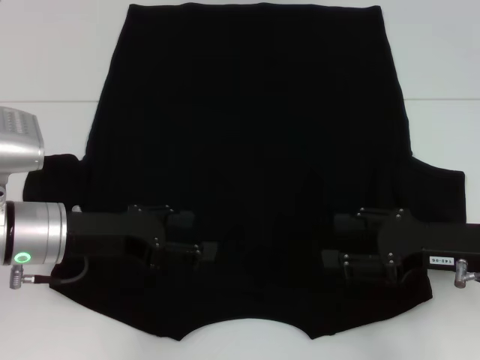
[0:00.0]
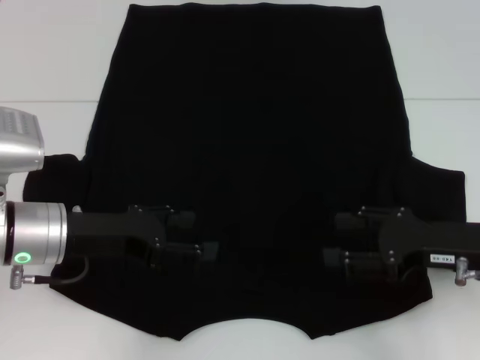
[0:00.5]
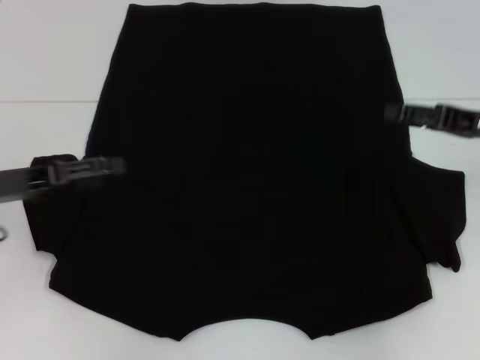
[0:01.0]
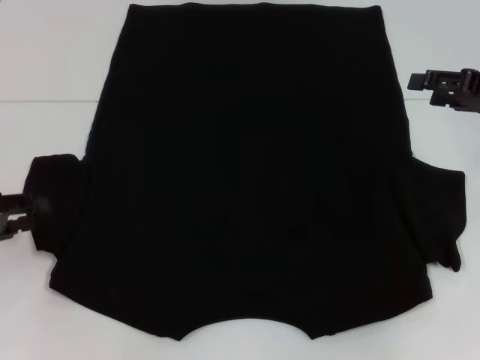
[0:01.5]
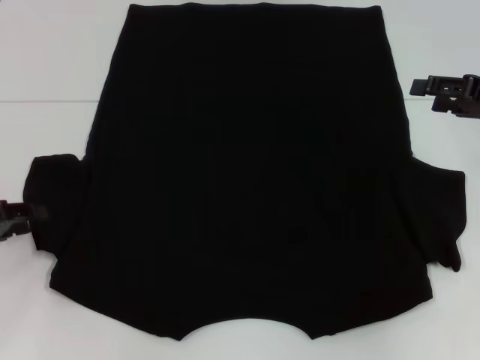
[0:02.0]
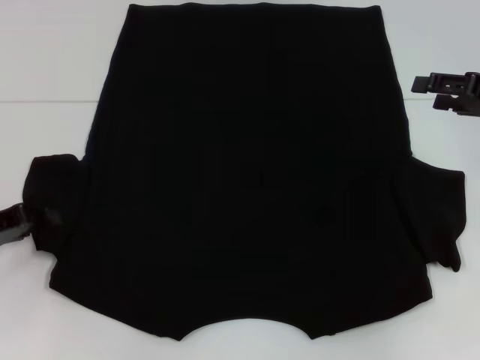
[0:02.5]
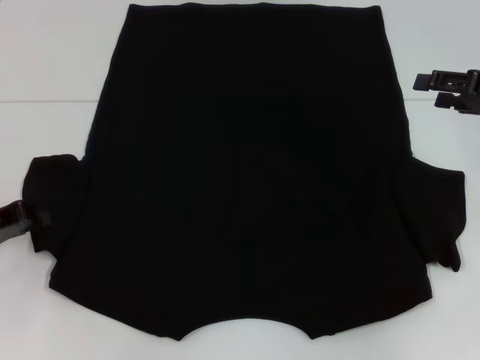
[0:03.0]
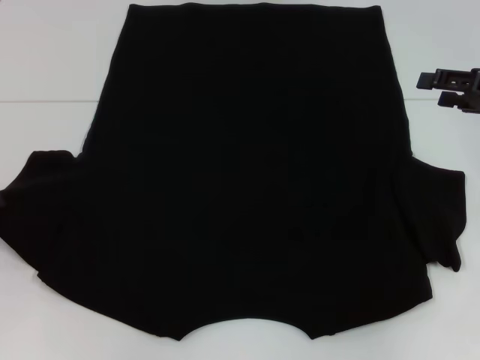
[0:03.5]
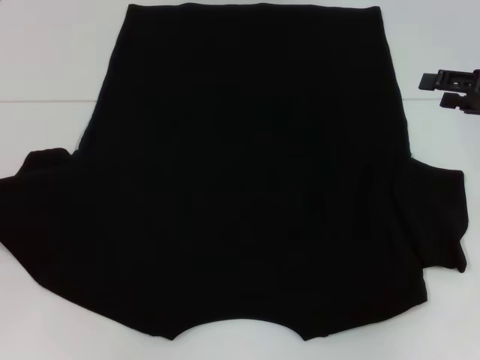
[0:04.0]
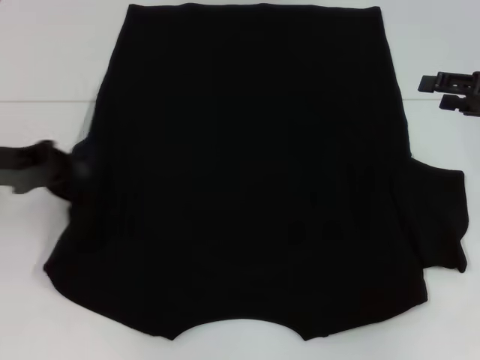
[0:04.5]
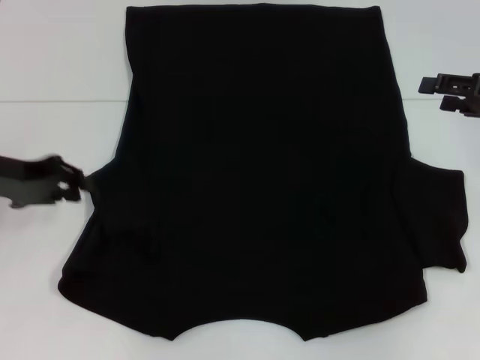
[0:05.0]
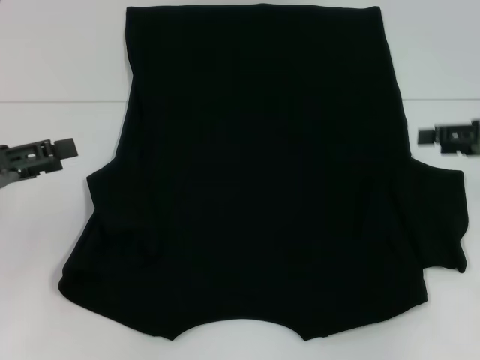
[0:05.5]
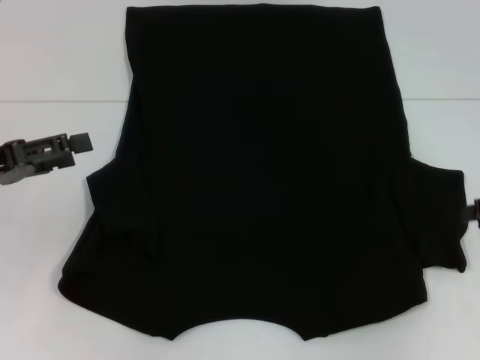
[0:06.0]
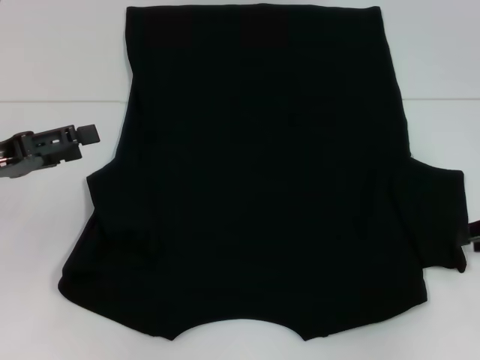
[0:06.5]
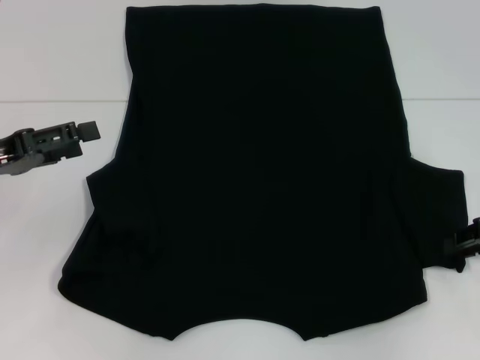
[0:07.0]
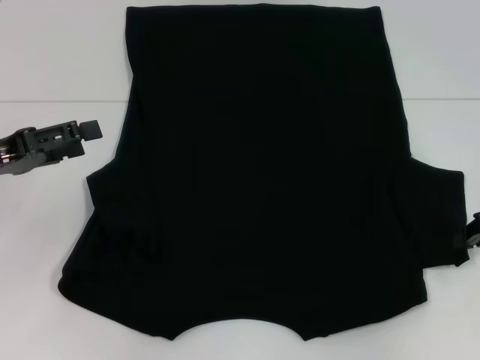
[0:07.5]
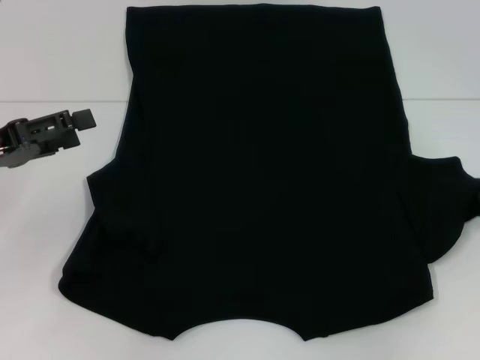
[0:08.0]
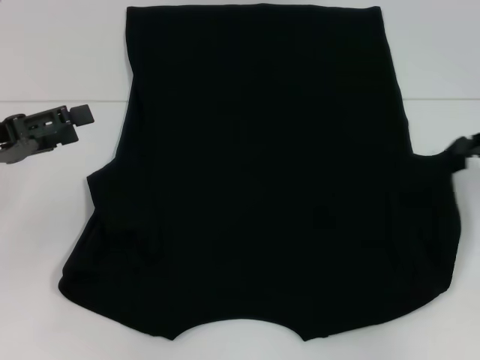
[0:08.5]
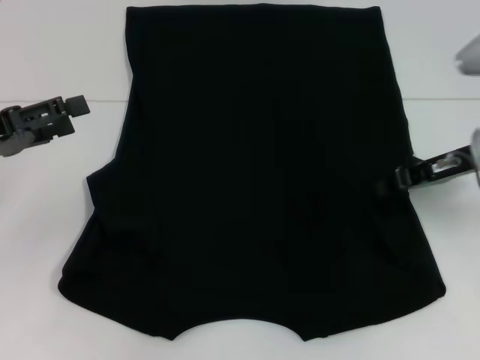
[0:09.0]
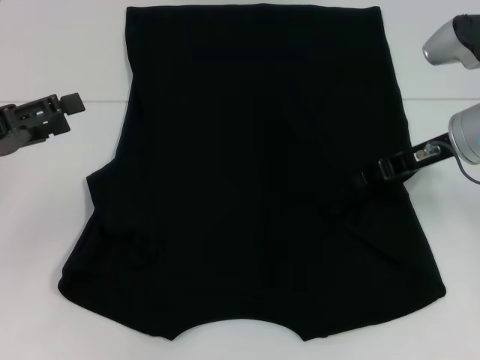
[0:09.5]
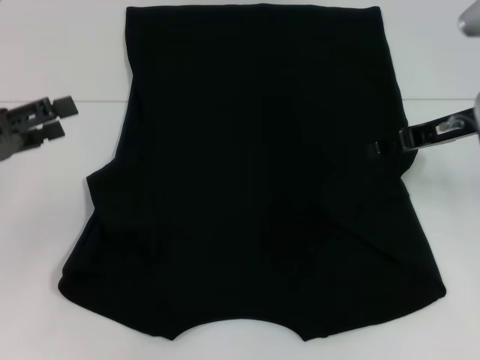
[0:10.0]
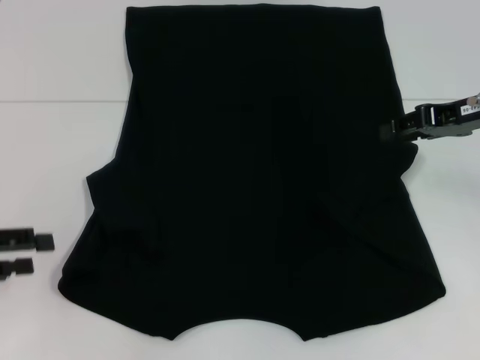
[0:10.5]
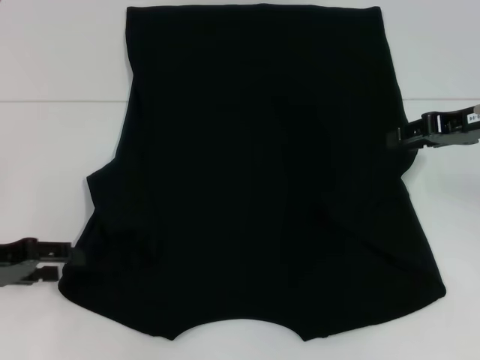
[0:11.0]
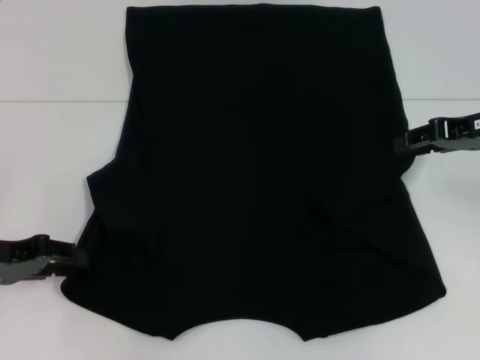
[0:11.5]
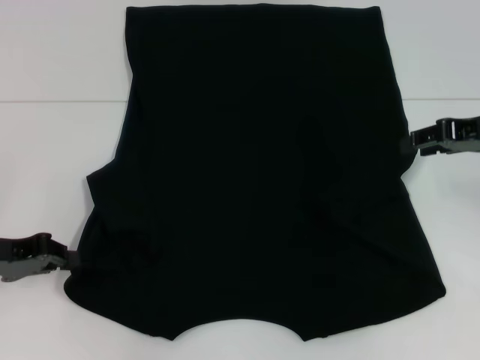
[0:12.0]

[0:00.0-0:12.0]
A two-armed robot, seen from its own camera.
Step, 0.0 to 5.5 s: Fold the bottom left sleeve with your left hand.
Step, 6.0 to 9.0 s: Fold the bottom right sleeve with your right hand.
0.0 to 2.0 s: The right gripper goes about 15 cm forward, upward and to the right, while the left gripper is displaced to the left by about 15 cm, and closes up.
2.0 to 4.0 s: The left gripper closes.
4.0 to 6.0 s: The left gripper heads to the right, covering some 5 cm, and opens its fingers; the right gripper travels backward by roughly 5 cm.
6.0 to 8.0 s: The right gripper closes.
8.0 to 10.0 s: The right gripper moves to the left and forward, some 15 cm, and opens its fingers.
10.0 to 12.0 s: The left gripper travels downward by approximately 5 cm, and closes.

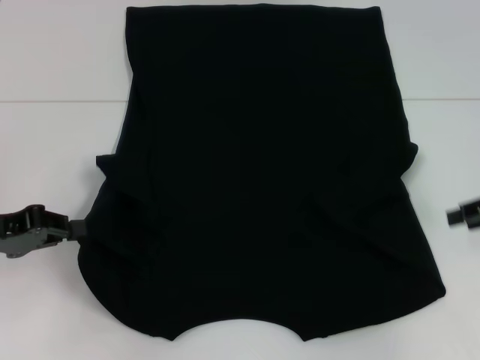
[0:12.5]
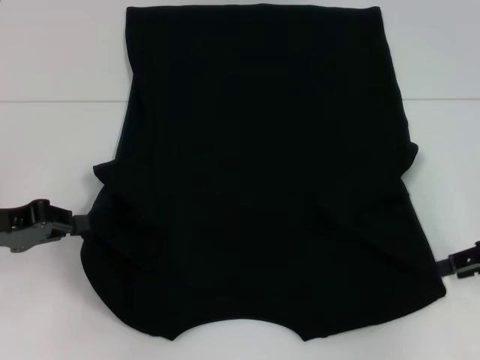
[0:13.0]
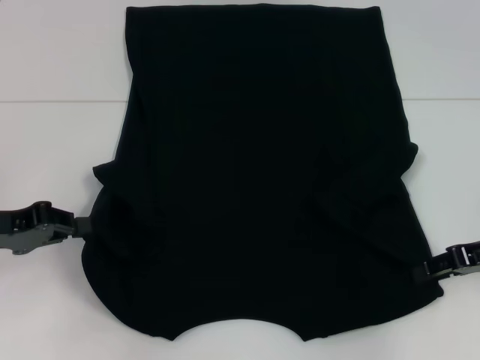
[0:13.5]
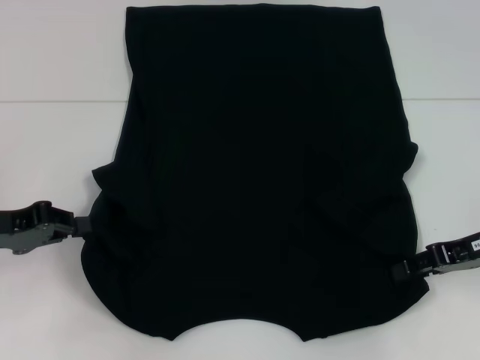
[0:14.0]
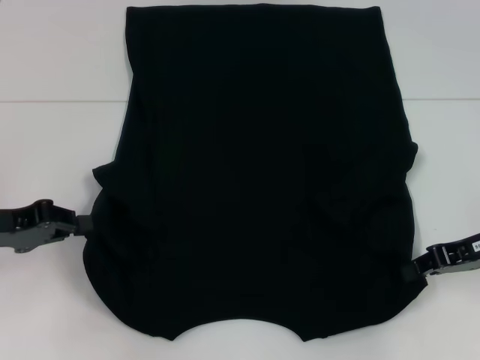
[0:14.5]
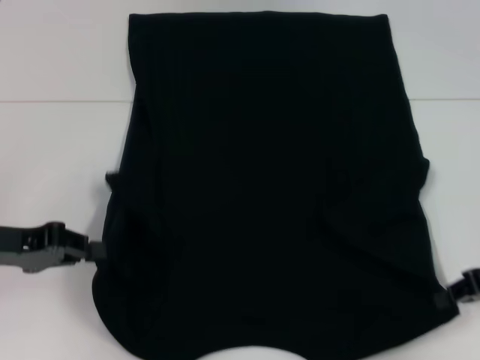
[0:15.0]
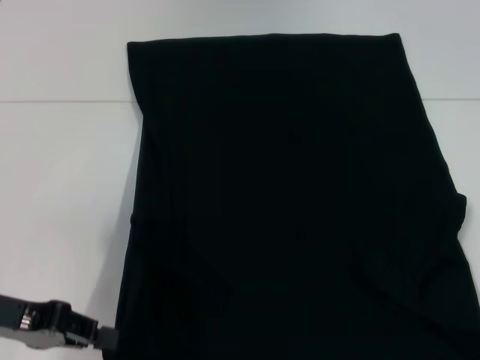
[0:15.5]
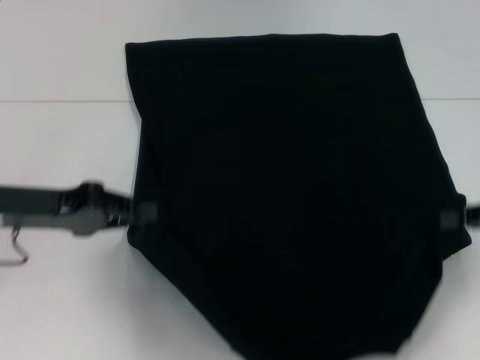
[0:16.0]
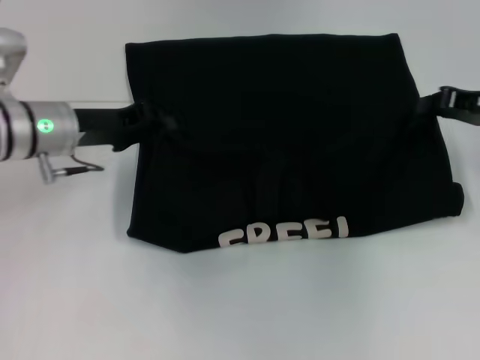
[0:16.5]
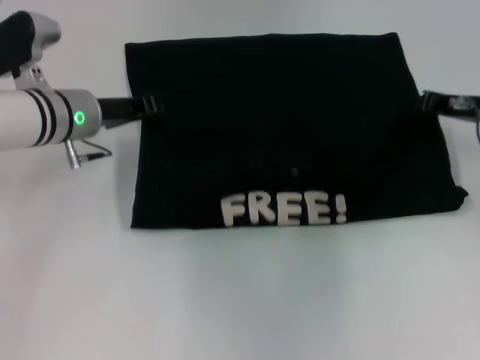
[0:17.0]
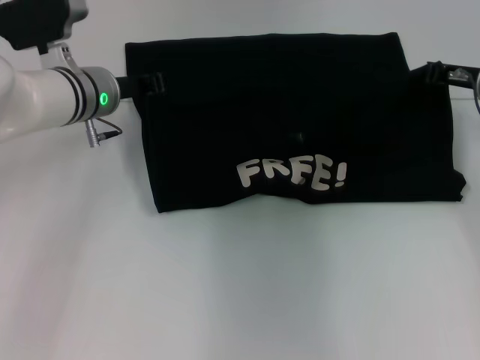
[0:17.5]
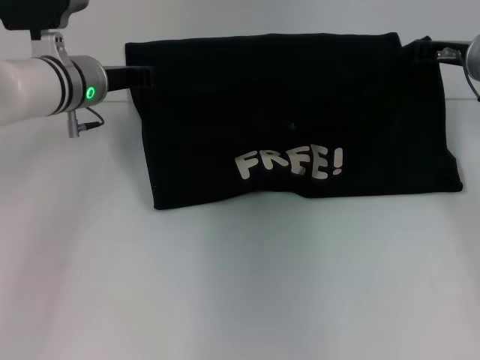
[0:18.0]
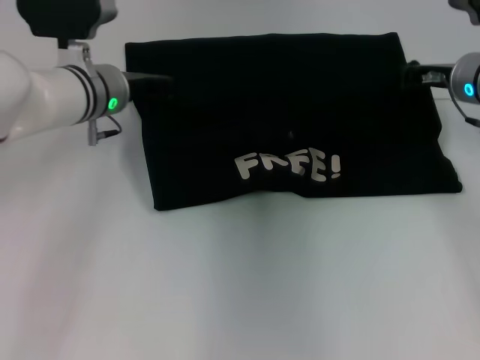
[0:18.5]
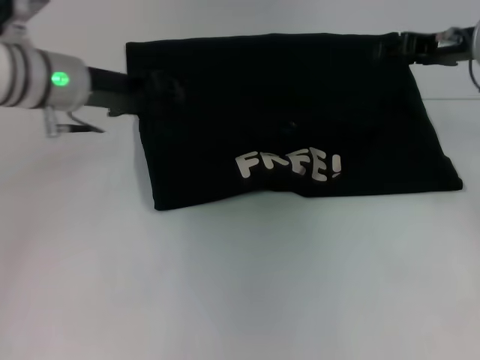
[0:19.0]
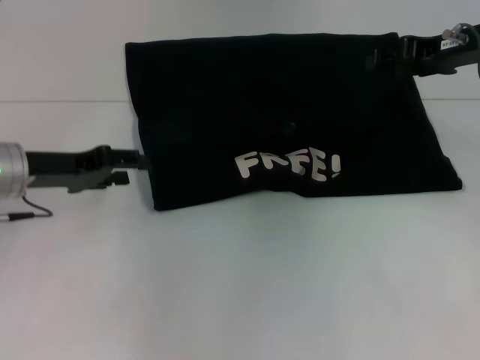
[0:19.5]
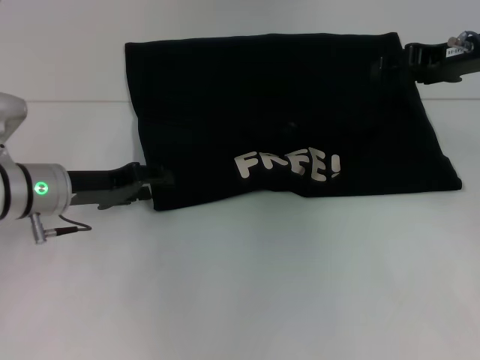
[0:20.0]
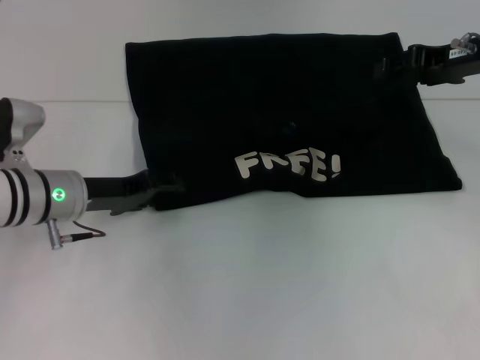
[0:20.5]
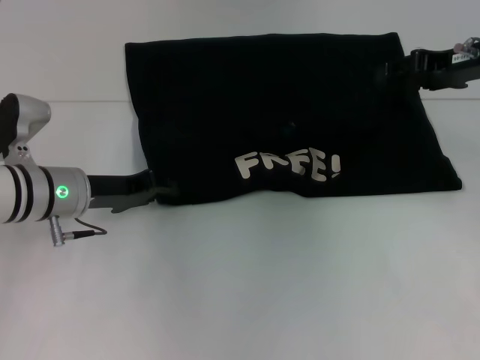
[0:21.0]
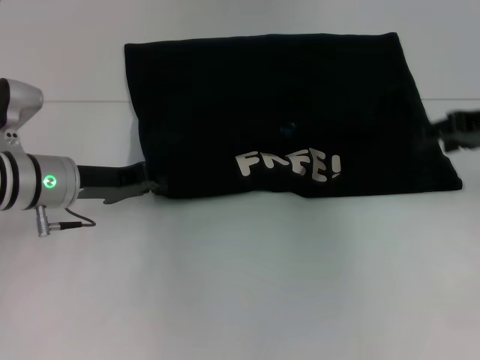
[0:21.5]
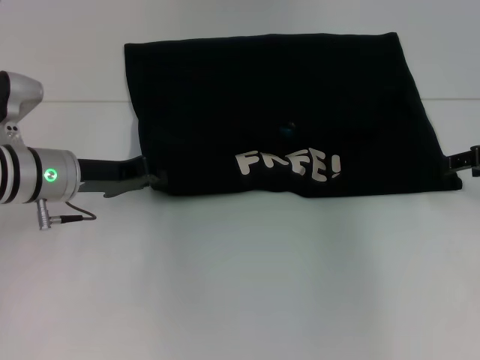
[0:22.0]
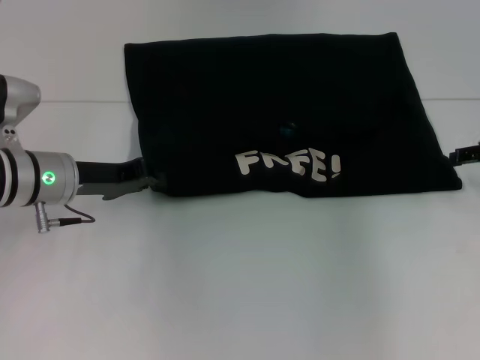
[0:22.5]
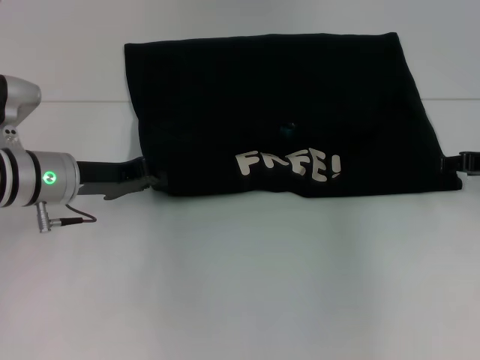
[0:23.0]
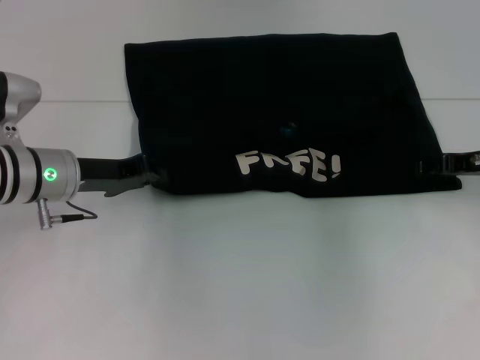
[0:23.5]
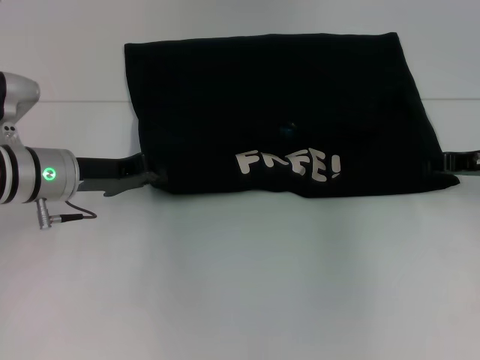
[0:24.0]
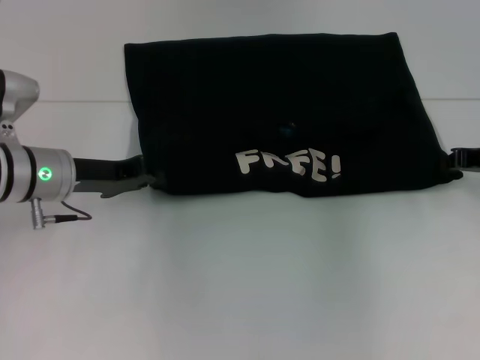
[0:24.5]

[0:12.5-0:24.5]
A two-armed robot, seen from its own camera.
Step, 12.5 to 14.5 s: Grab the bottom right corner with your right hand.
Step, 15.0 to 18.5 s: Fold the clothes with your left hand.
Step, 15.0 to 18.5 s: Fold the clothes with your right hand.
12.5 to 14.5 s: The right gripper moves to the left, approximately 5 cm.
14.5 to 16.5 s: The left gripper moves forward and to the right, roughly 15 cm, while the right gripper shifts approximately 10 cm forward.
16.5 to 18.5 s: The left gripper goes about 5 cm to the right. Meanwhile the right gripper moves to the left, roughly 5 cm.
18.5 to 20.5 s: The right gripper shifts approximately 5 cm upward, and opens, while the left gripper shifts roughly 10 cm backward, downward and to the left, and opens.
20.5 to 22.5 s: The right gripper is displaced to the right and downward by some 10 cm. The left gripper closes its fingers.
22.5 to 24.5 s: The right gripper closes.

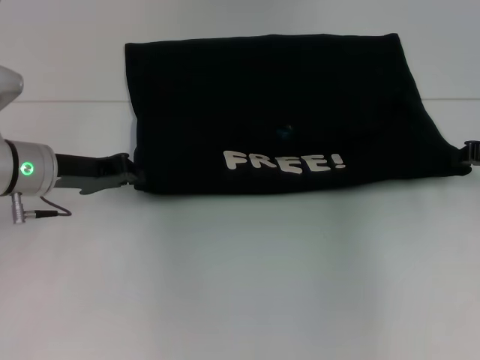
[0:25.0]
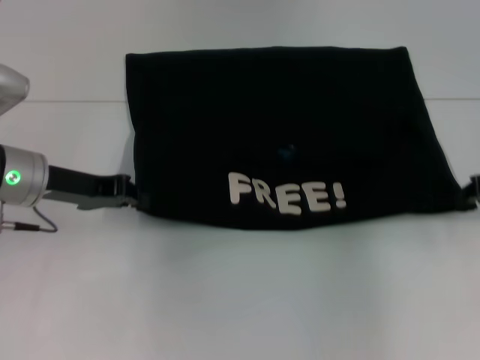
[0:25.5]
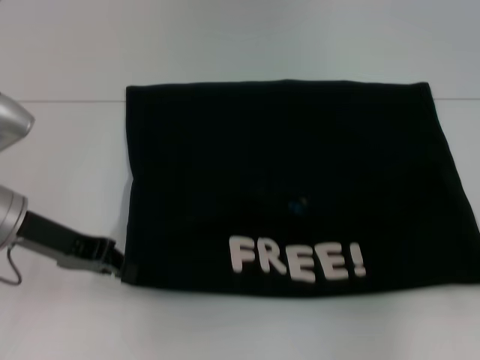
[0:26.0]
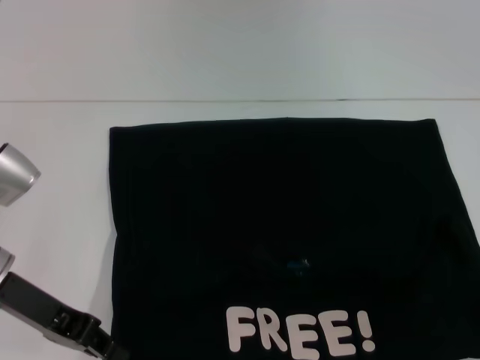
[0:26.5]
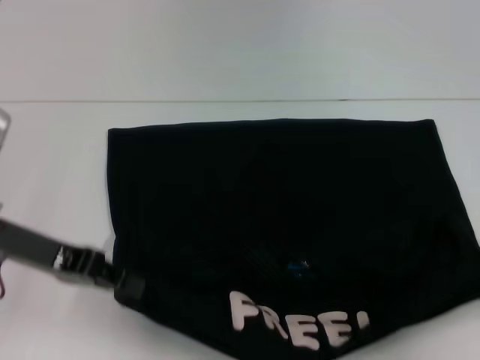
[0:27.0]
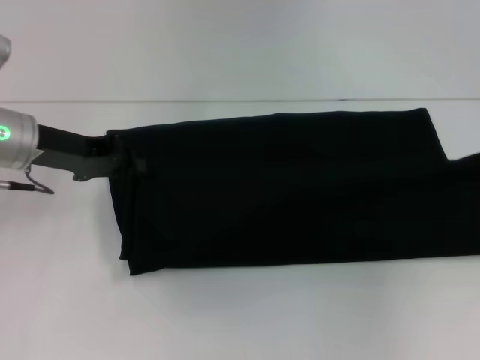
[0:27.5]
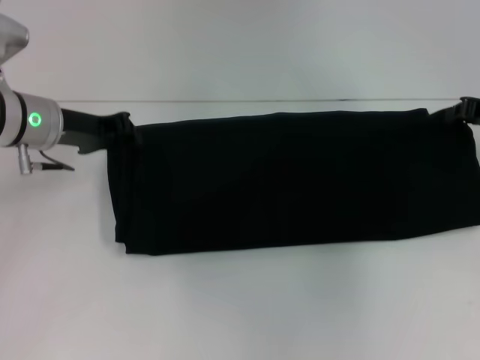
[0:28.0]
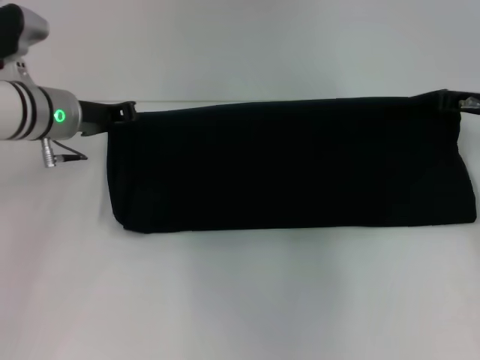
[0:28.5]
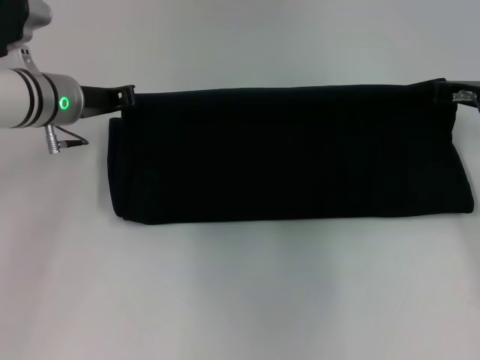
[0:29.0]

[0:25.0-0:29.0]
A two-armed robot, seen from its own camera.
25.0 to 27.0 s: Both grippers travel together backward, approximately 10 cm.
27.0 to 29.0 s: The left gripper is displaced forward by approximately 15 cm. The right gripper heads forward and to the left, covering some 20 cm.
